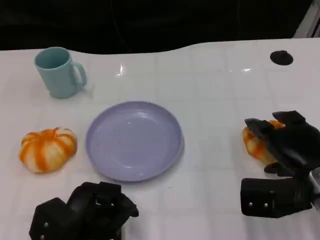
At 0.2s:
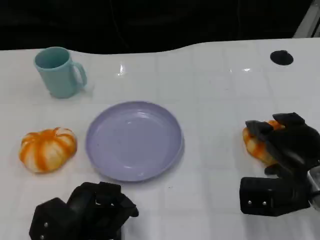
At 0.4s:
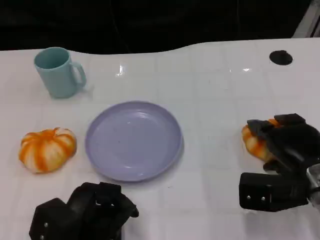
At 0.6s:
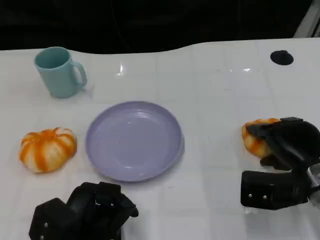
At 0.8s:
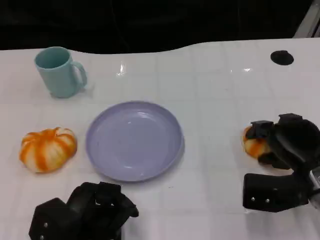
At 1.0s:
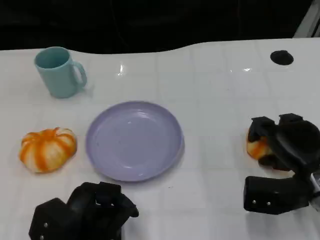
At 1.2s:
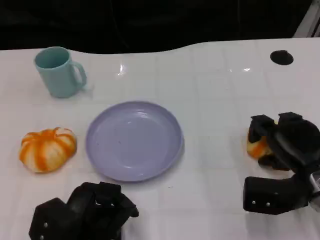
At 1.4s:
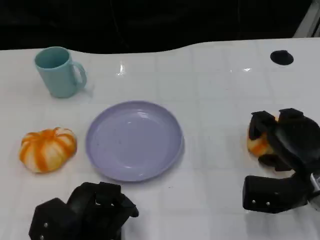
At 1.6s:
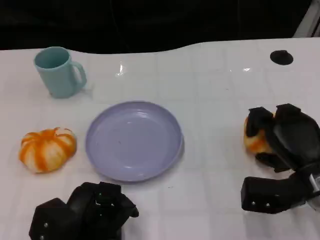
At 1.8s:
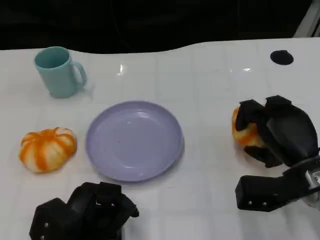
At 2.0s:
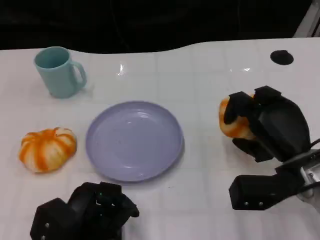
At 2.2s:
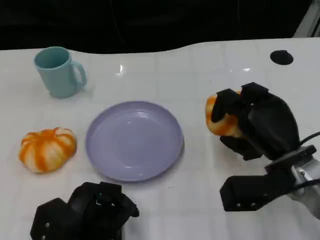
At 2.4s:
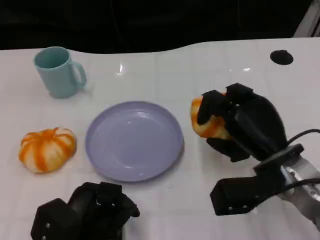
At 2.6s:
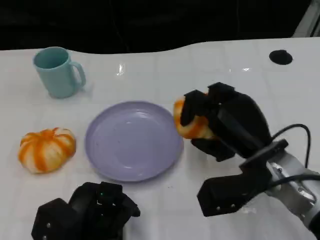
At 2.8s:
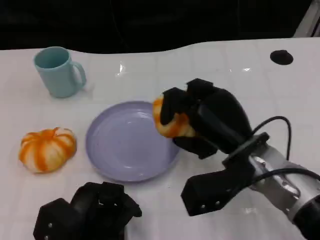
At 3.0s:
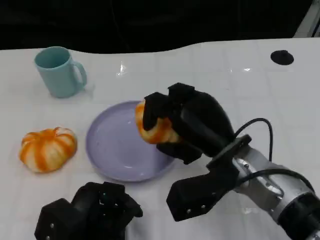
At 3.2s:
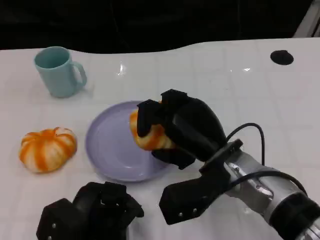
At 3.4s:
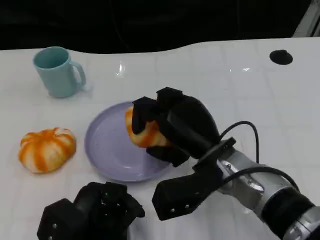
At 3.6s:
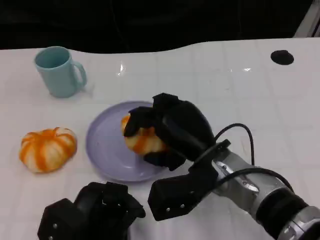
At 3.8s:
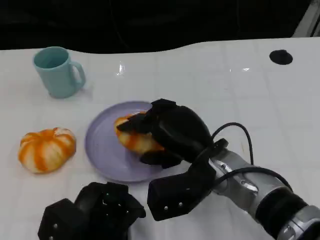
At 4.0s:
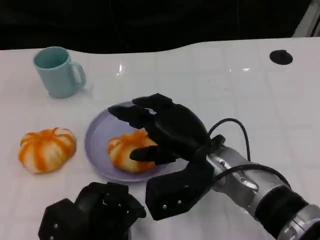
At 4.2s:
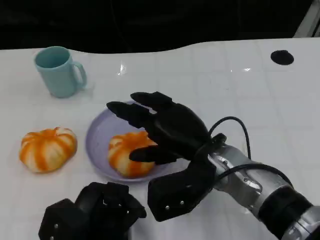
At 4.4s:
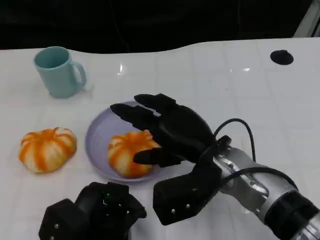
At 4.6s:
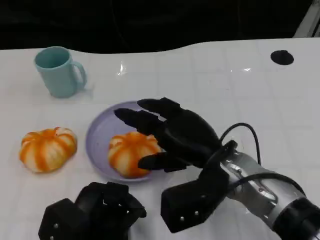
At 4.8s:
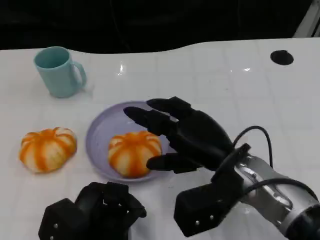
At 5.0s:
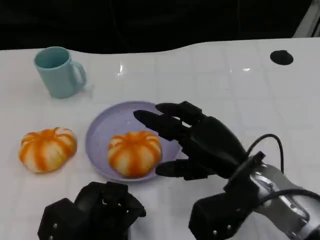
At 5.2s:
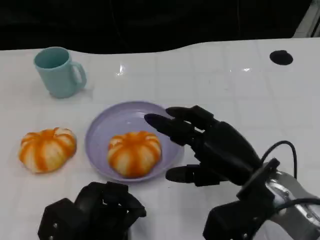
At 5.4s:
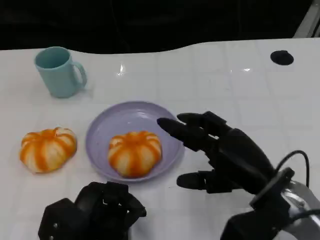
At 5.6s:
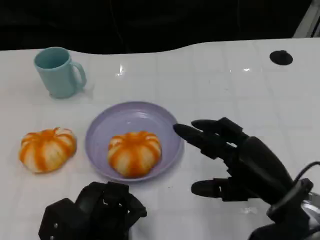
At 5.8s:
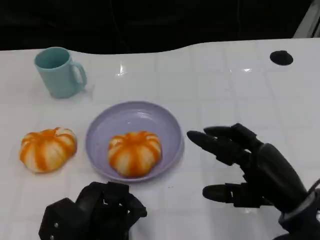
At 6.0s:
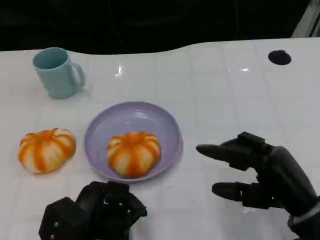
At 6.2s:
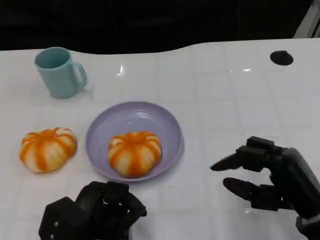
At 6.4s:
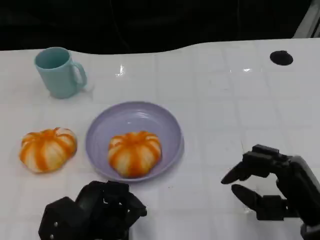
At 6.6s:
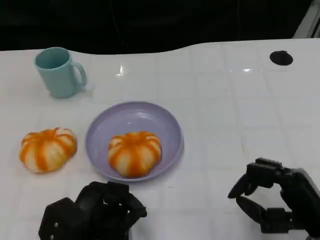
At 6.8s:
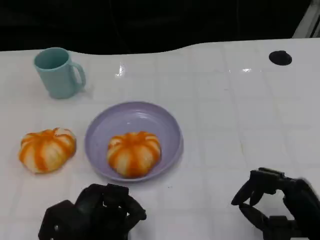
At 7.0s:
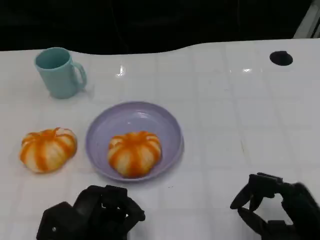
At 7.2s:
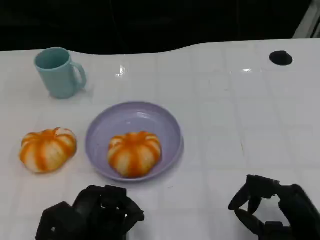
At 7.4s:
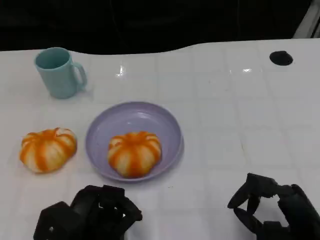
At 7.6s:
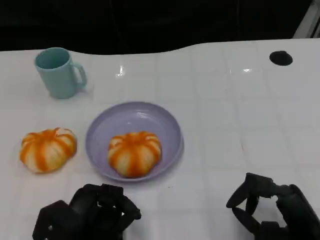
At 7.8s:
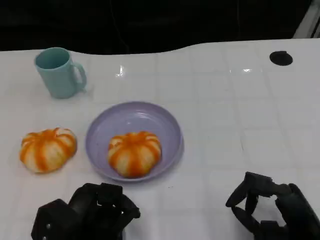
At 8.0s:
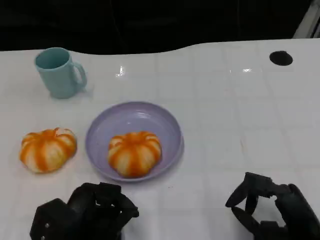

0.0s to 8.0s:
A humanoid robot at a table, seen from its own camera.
Task of the whole recording: Grasp the bread from the table and place it into the plate.
1.6s to 3.2s: The right hand shifts about 15 cm to the left.
3.2s to 4.8s: The hands make only small movements.
4.8s to 6.4s: The right hand goes roughly 15 cm to the right and backward.
6.4s to 8.0s: The hands stay close to where they were, moving slightly.

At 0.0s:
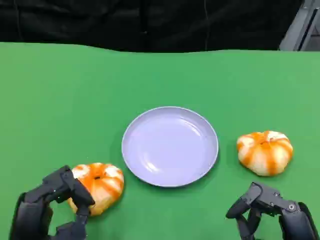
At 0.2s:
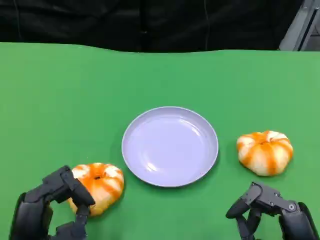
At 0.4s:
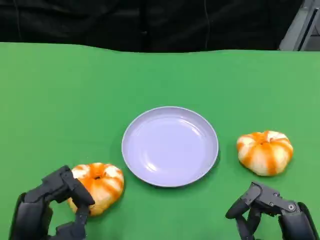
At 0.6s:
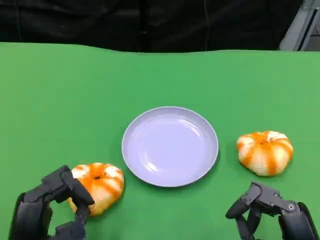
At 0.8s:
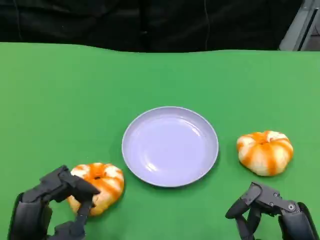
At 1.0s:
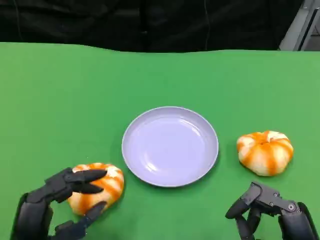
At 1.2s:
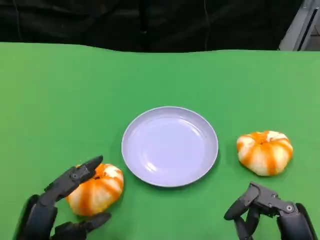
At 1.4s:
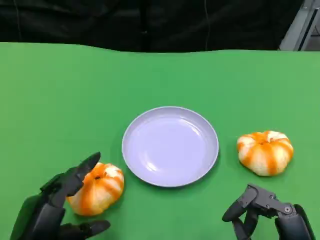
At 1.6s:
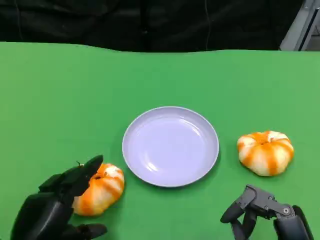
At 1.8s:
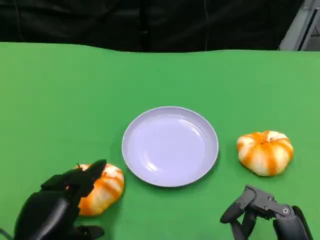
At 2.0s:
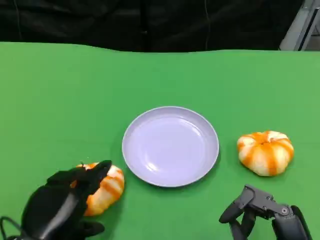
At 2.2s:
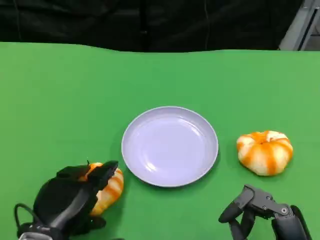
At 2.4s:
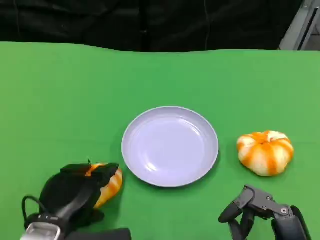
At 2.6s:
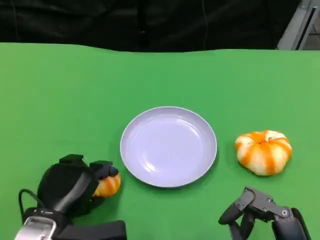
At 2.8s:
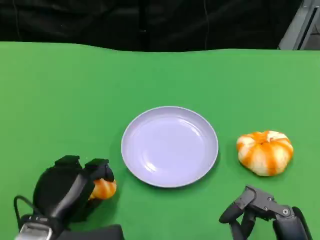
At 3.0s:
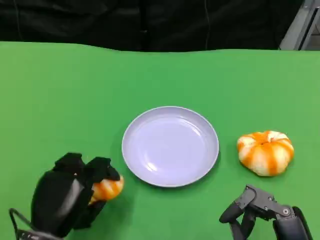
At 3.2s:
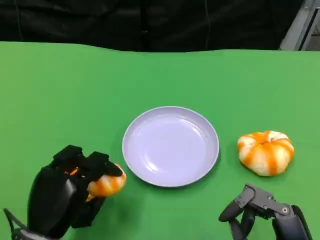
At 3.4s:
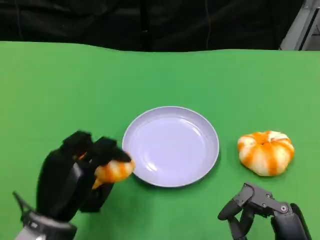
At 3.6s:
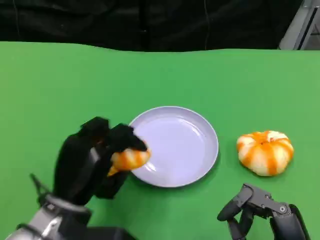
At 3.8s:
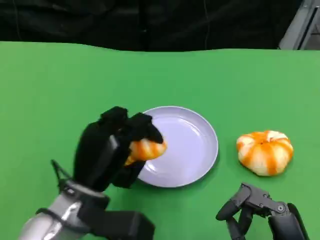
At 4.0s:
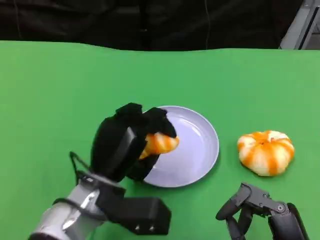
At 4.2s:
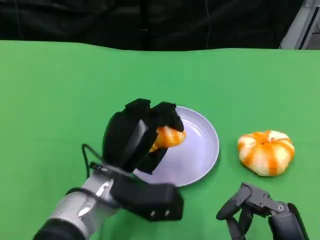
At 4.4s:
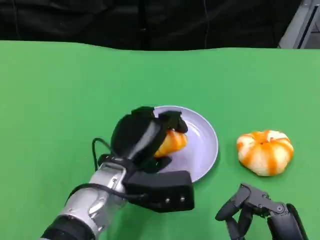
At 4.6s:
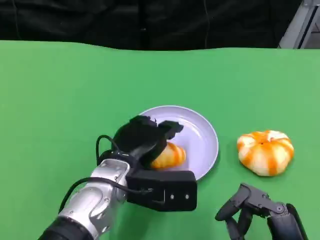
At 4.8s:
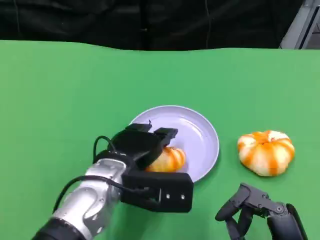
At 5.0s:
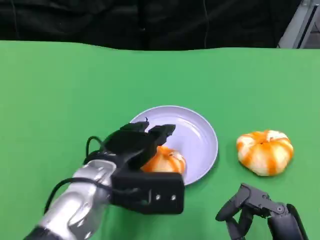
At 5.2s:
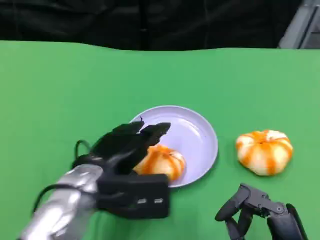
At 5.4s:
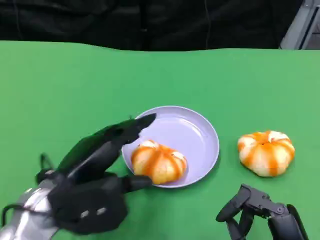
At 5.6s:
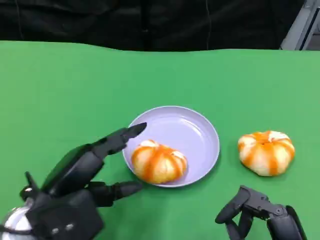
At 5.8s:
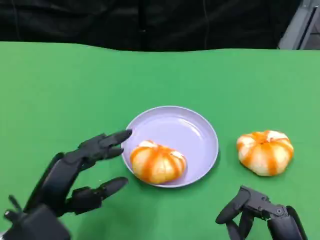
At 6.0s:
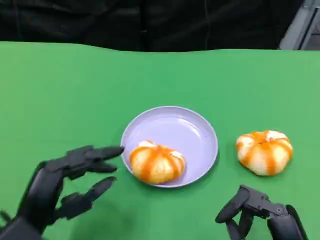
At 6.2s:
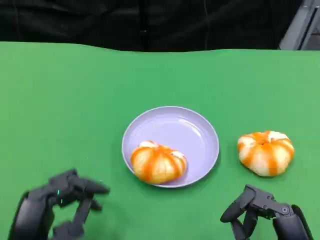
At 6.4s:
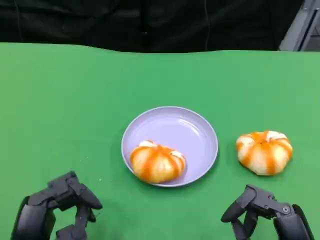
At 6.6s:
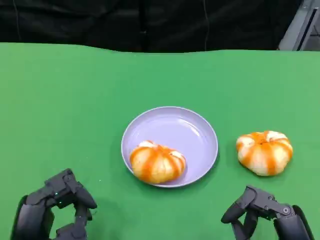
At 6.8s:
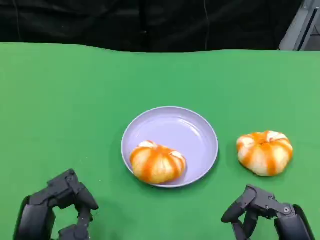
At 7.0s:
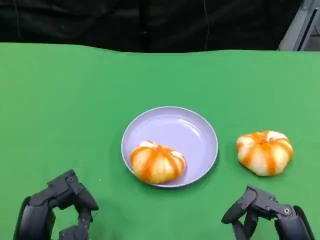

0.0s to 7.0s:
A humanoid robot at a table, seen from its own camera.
Task of the whole recording: Grasp the bread from the table and place it into the plate.
1.4s to 2.8s: The left hand heads forward, covering roughly 5 cm.
2.8s to 4.2s: The left hand shifts some 10 cm to the right and forward.
4.2s to 5.6s: The left hand is displaced to the left and backward by some 10 cm.
5.6s to 7.0s: The left hand shifts about 10 cm backward and downward.

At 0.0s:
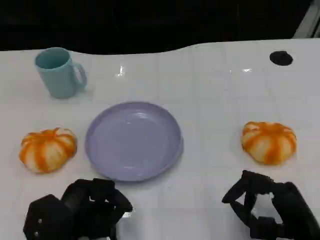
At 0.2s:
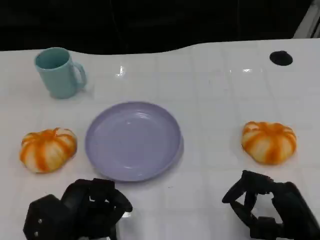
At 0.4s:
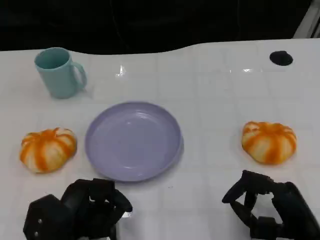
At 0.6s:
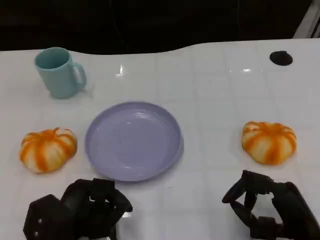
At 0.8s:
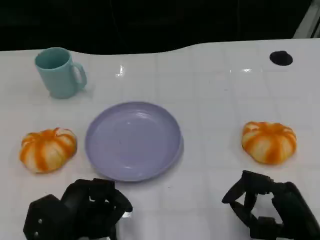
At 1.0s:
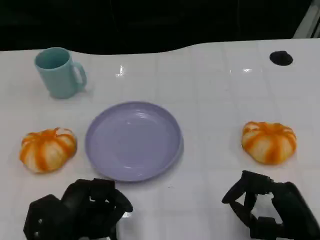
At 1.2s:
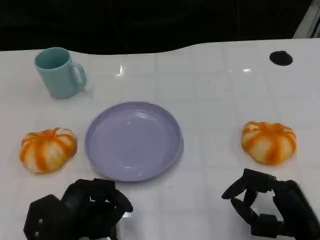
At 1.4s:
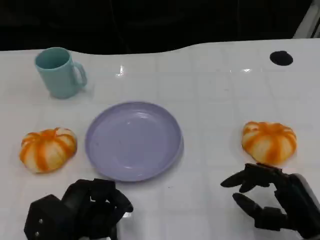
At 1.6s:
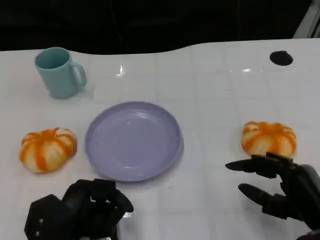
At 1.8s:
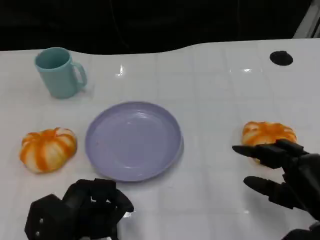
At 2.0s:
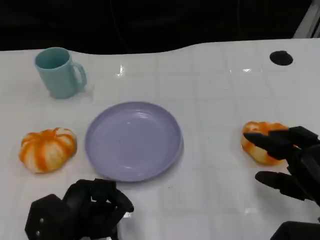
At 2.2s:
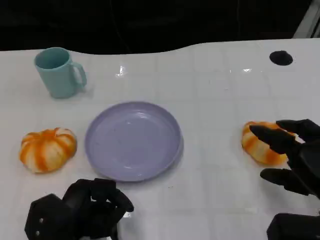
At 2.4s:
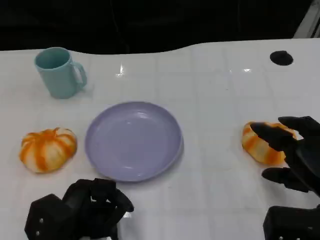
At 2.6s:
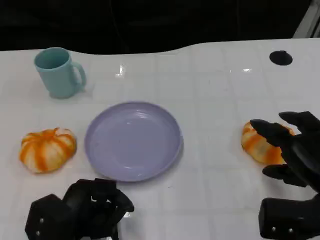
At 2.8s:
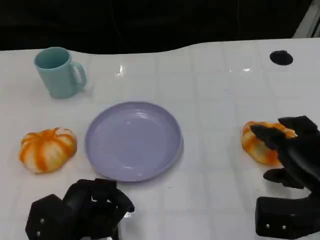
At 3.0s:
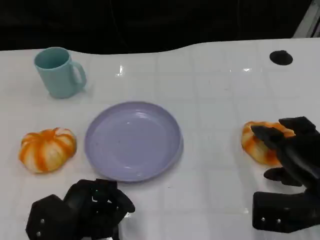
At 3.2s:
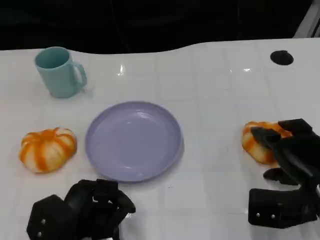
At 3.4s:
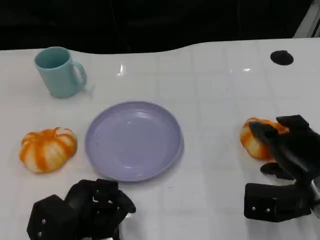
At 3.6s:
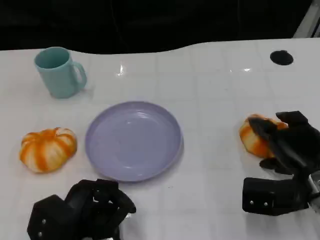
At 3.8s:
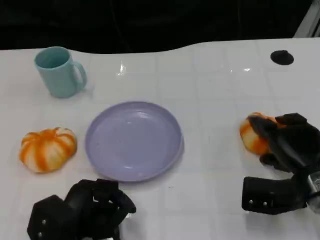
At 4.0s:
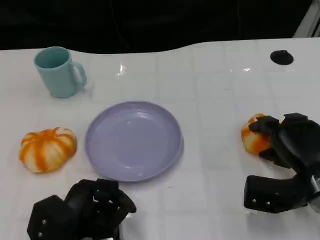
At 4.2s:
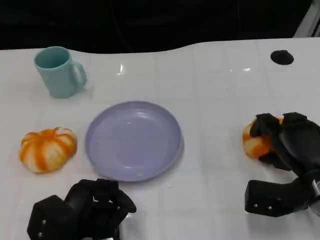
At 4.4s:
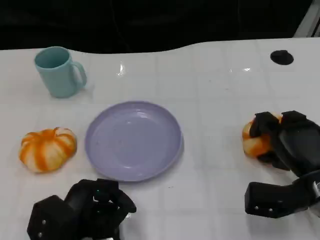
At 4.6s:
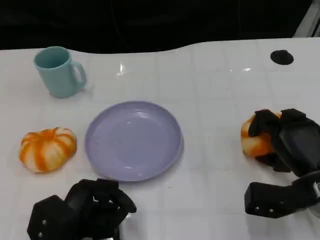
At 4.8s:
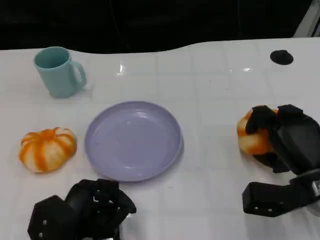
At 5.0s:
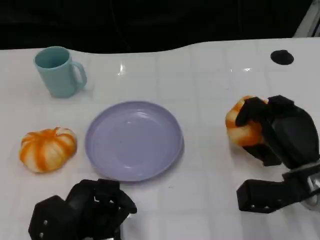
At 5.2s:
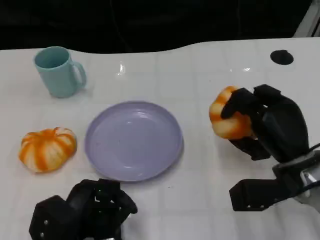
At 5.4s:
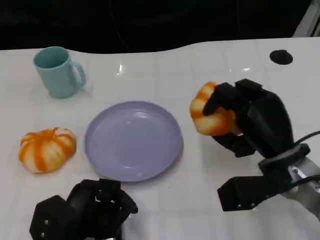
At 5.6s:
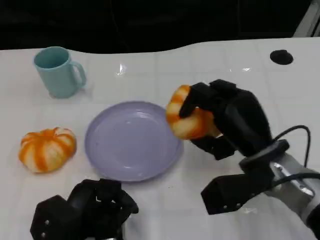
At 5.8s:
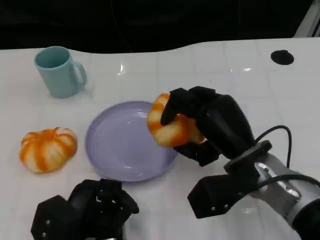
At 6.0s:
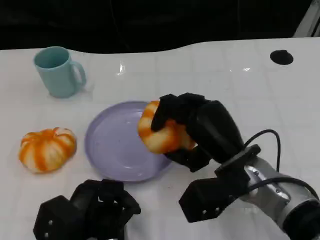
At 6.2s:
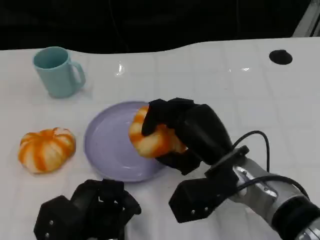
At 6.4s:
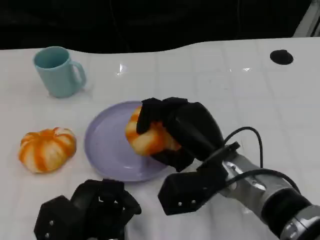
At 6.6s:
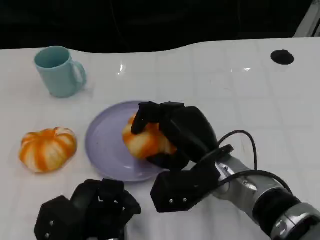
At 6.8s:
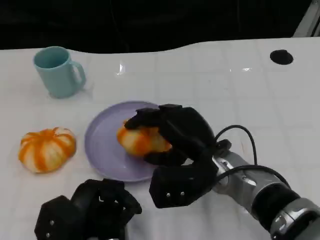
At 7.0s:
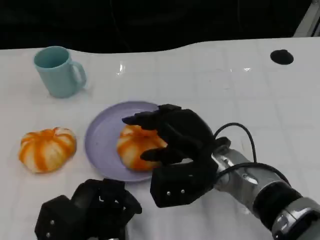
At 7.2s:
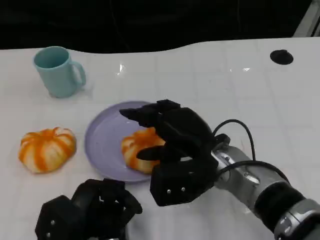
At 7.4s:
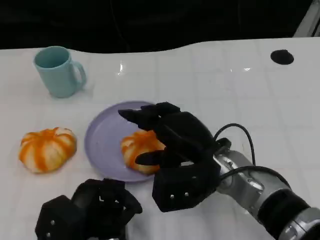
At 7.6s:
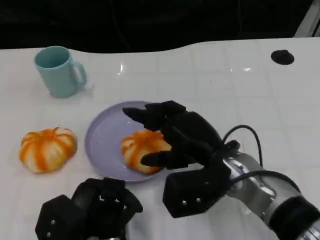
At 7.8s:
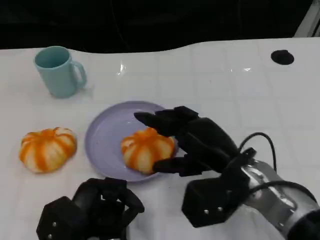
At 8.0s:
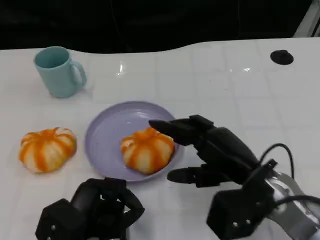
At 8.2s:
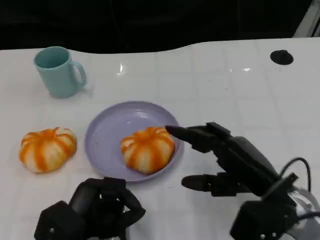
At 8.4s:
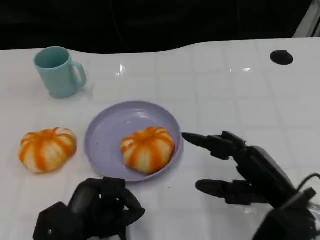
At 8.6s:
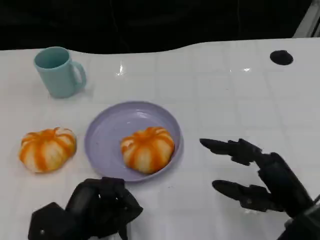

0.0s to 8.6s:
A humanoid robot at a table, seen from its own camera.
Task of the whole recording: Grasp the bread from the table and place it into the plate.
0.0s to 1.4s: There are only small adjustments of the hands.
1.4s to 2.8s: The right hand ends up roughly 5 cm from where it was.
2.8s to 4.4s: The right hand moves approximately 5 cm.
4.4s to 5.8s: The right hand travels to the left and upward by approximately 15 cm.
7.2s to 8.6s: The right hand moves to the right and backward, roughly 15 cm.
